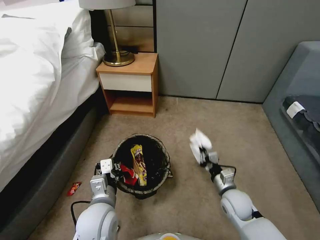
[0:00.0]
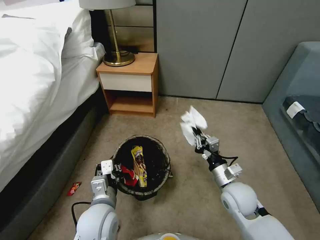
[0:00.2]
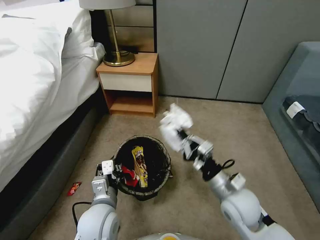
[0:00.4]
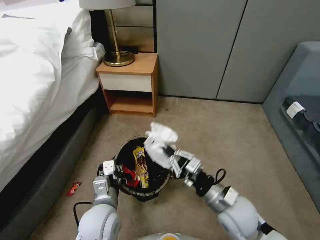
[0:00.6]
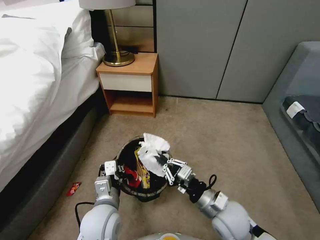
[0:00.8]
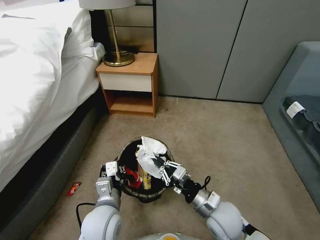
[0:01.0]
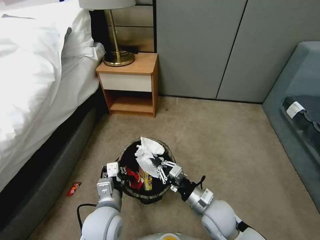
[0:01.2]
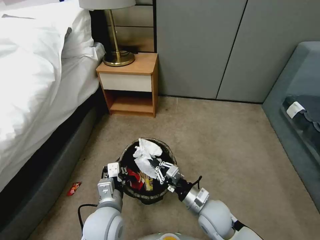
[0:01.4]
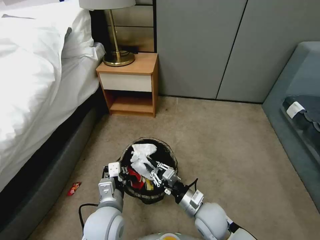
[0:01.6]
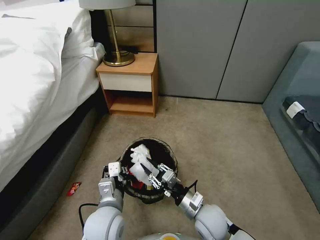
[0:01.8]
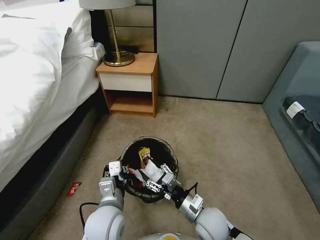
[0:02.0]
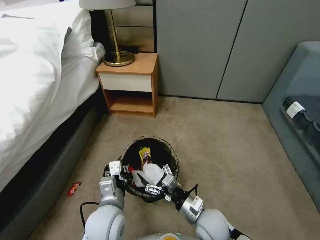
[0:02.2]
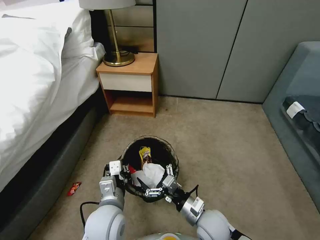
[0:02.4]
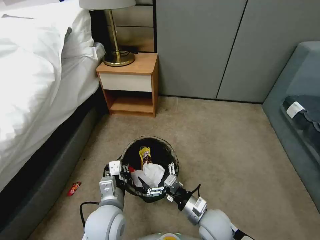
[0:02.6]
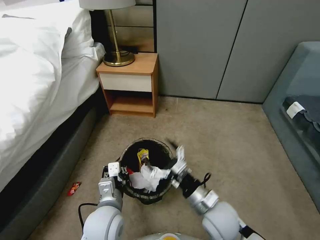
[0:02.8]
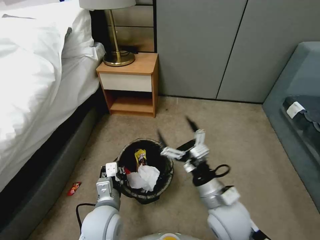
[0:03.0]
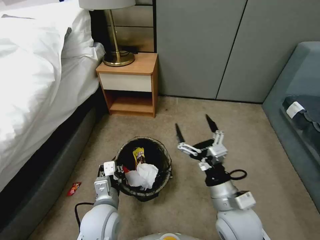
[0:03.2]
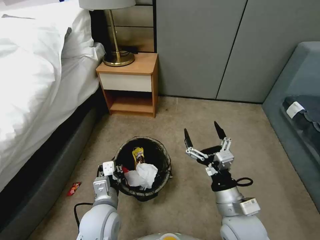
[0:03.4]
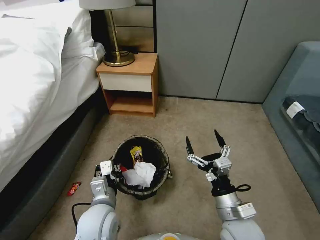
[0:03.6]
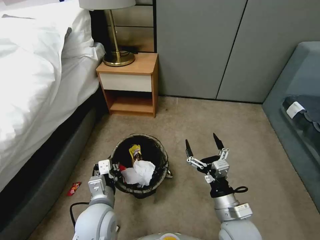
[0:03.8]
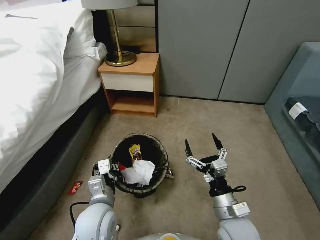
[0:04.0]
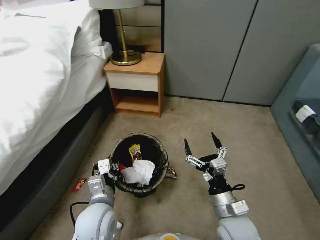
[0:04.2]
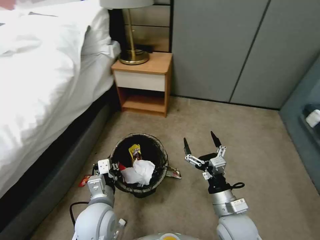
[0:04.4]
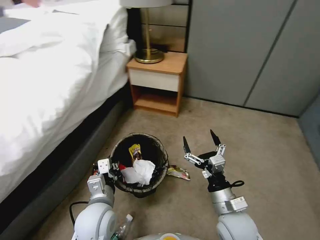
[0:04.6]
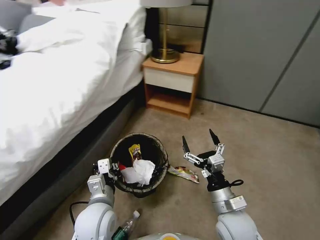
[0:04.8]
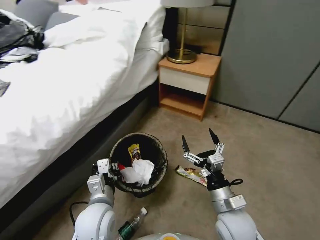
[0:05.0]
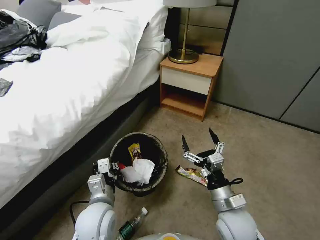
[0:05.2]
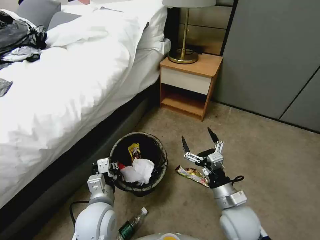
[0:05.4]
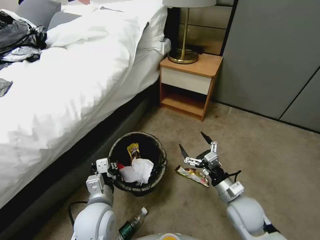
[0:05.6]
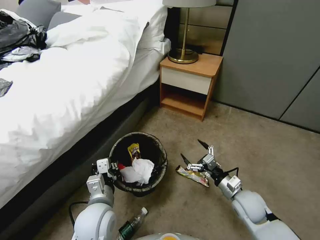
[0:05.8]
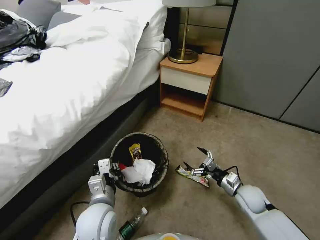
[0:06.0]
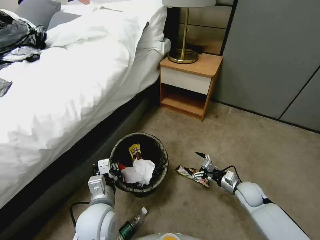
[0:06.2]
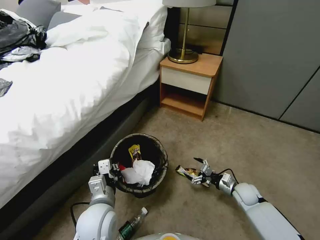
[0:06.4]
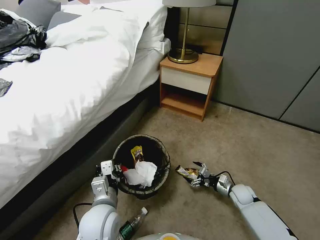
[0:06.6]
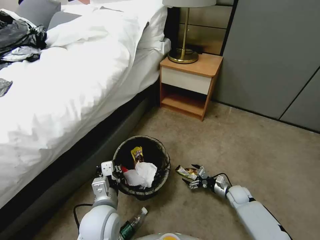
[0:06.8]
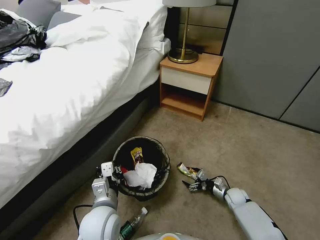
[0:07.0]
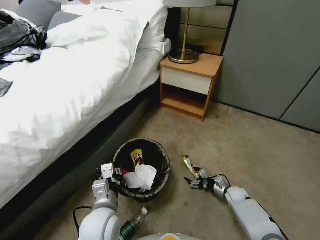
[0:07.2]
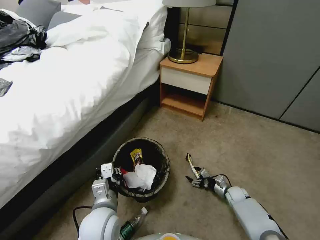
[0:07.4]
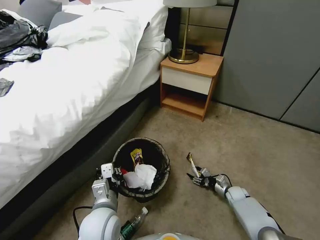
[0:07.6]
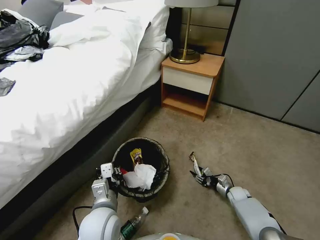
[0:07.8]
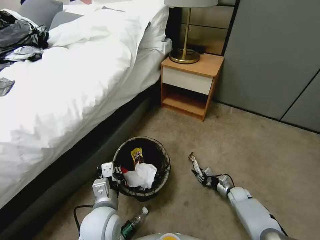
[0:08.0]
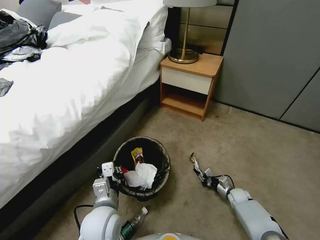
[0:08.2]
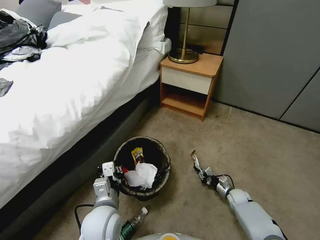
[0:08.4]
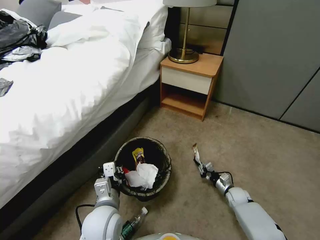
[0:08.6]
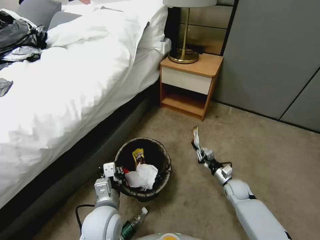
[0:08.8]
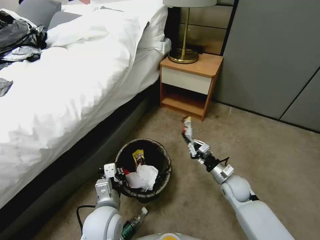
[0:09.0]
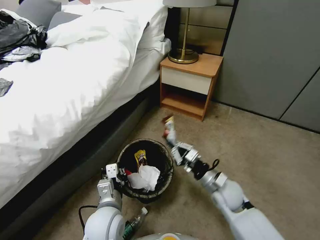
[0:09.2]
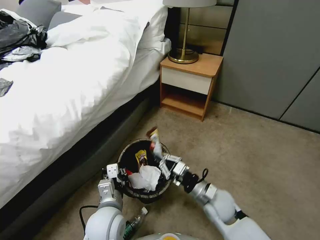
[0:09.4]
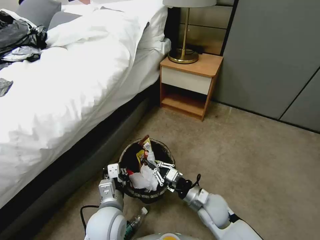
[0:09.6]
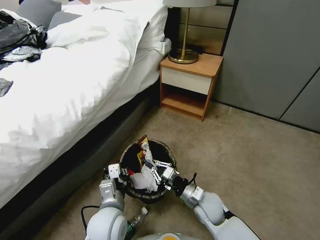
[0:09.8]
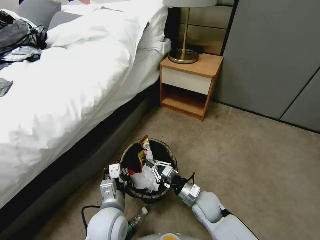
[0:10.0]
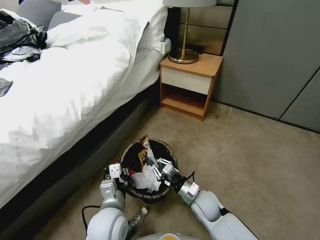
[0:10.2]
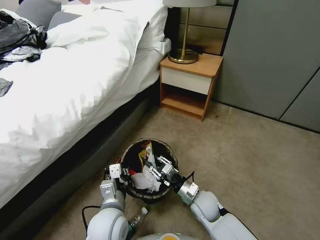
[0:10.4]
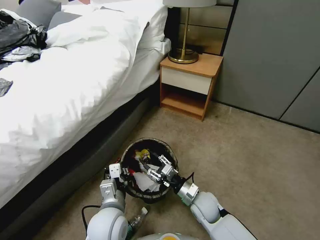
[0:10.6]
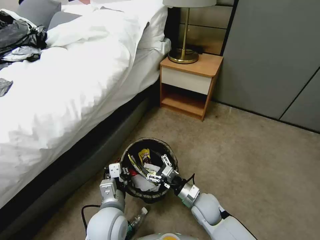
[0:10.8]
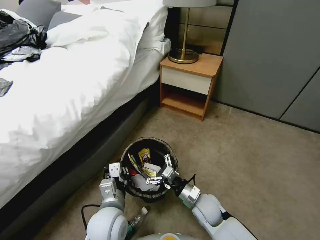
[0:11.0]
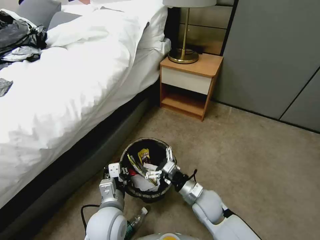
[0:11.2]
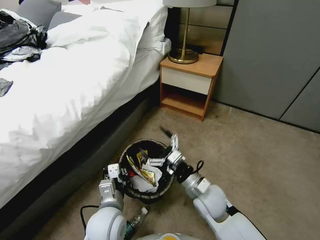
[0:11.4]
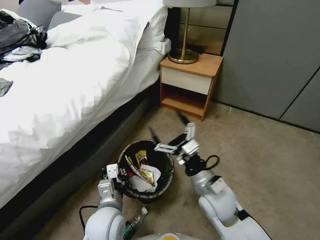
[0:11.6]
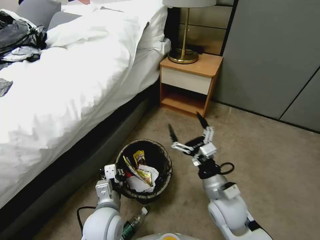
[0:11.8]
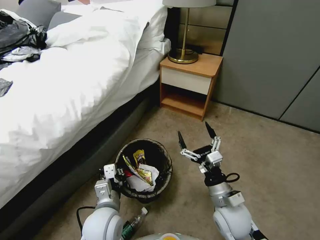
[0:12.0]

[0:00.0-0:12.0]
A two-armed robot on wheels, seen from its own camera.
Task of the whole recording: Pick up the trash bin, then pick up the garbage from the floor and place it into the trash bin.
0:00.0 to 0:01.6: The right gripper shifts about 10 cm to the left and backward, and moves some 15 cm upward and comes back.
0:01.6 to 0:03.0: The right gripper shifts some 10 cm upward, and opens.
0:03.0 to 0:04.4: The right gripper is displaced downward by some 5 cm.
0:04.4 to 0:06.0: The right gripper goes approximately 20 cm to the right, forward and downward.
0:06.0 to 0:07.6: The right gripper shifts some 15 cm downward, and closes its fingers.
0:07.6 to 0:09.0: The right gripper travels upward and to the left by approximately 20 cm, and closes its fingers.
0:09.0 to 0:10.4: The right gripper moves to the left and backward, some 15 cm.
0:10.4 to 0:12.0: The right gripper goes roughly 10 cm upward and backward, and opens.

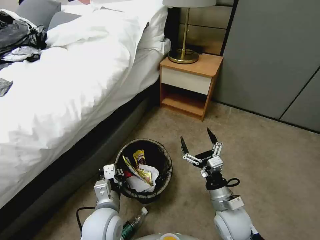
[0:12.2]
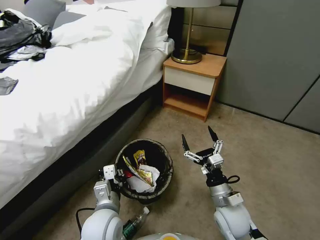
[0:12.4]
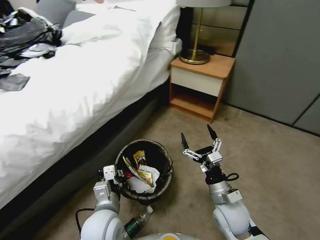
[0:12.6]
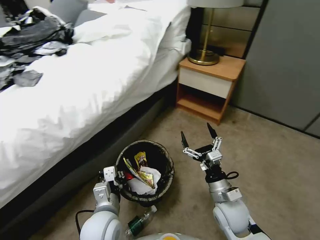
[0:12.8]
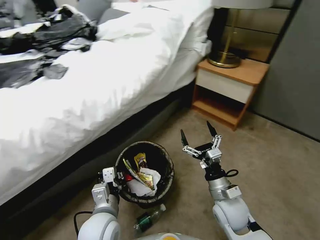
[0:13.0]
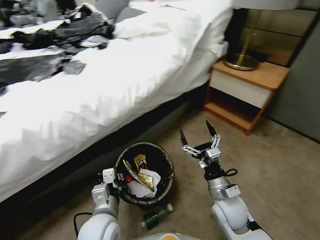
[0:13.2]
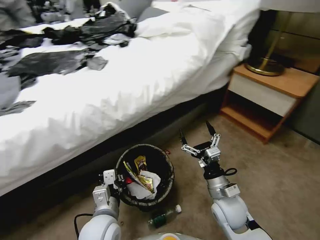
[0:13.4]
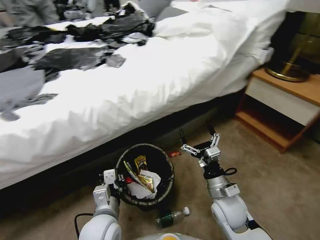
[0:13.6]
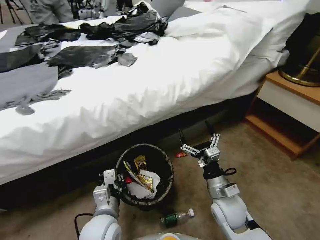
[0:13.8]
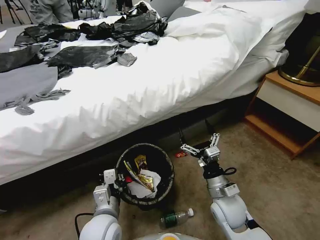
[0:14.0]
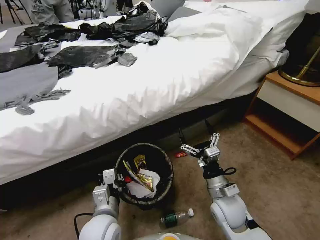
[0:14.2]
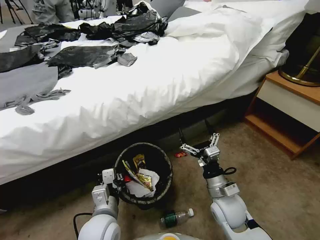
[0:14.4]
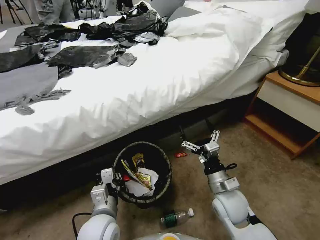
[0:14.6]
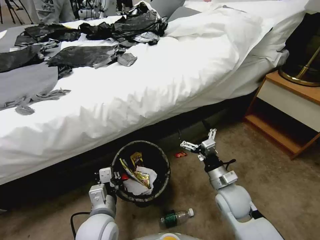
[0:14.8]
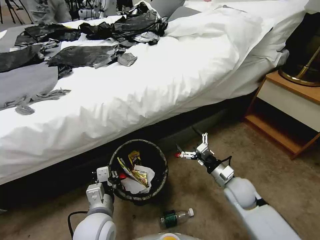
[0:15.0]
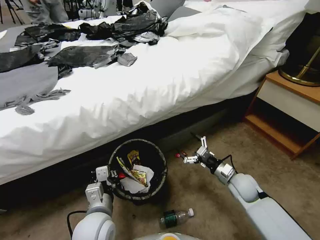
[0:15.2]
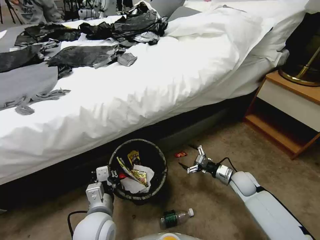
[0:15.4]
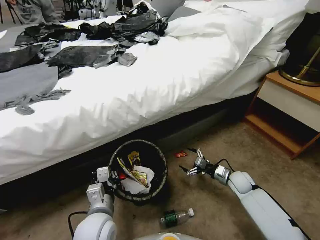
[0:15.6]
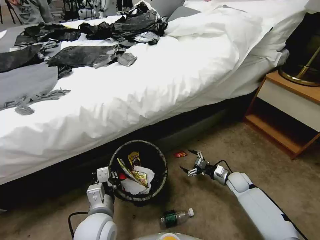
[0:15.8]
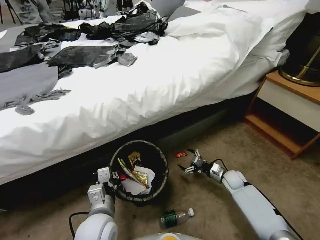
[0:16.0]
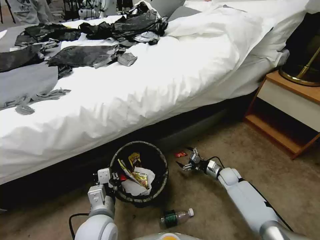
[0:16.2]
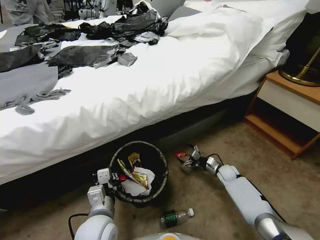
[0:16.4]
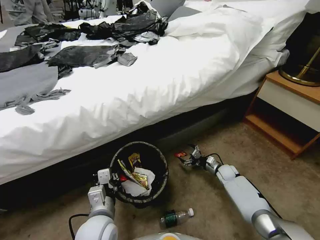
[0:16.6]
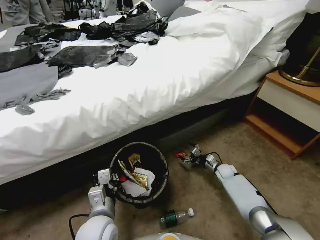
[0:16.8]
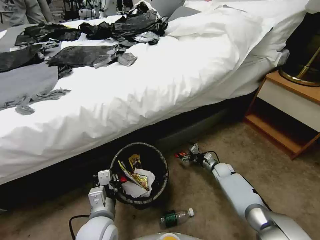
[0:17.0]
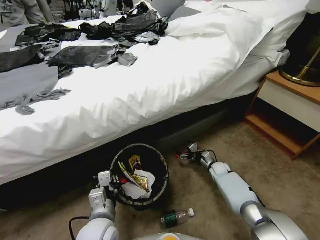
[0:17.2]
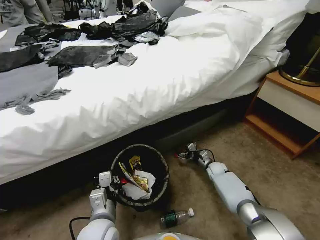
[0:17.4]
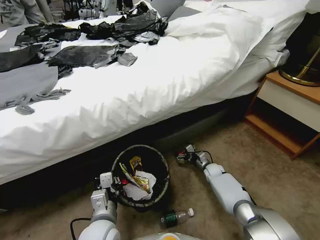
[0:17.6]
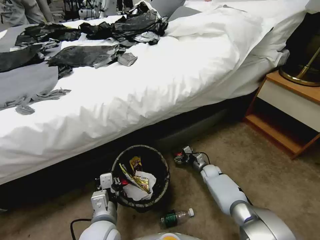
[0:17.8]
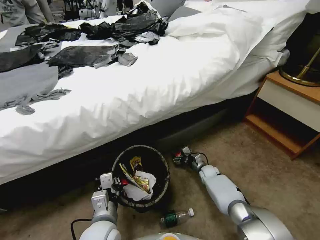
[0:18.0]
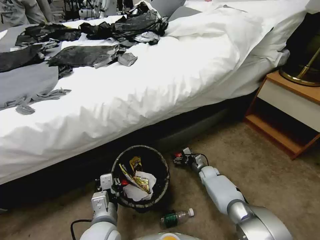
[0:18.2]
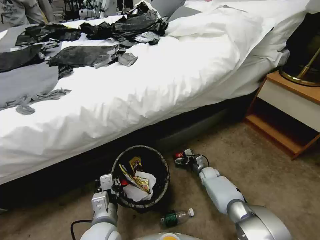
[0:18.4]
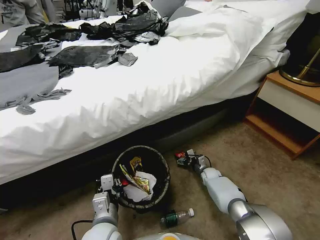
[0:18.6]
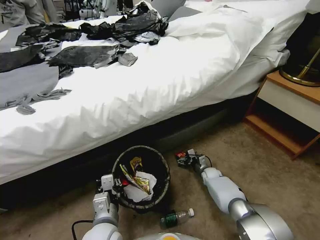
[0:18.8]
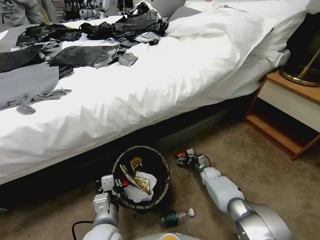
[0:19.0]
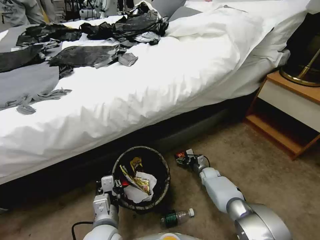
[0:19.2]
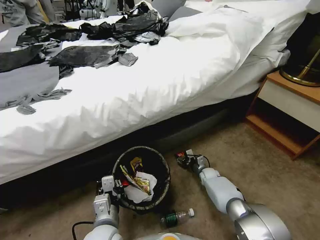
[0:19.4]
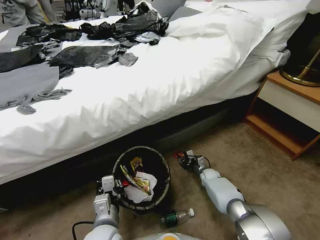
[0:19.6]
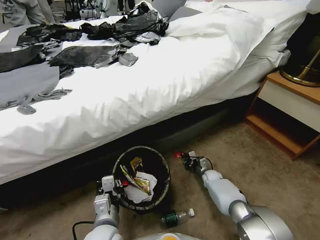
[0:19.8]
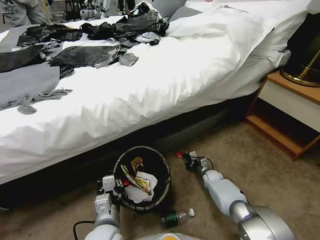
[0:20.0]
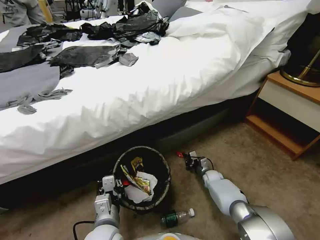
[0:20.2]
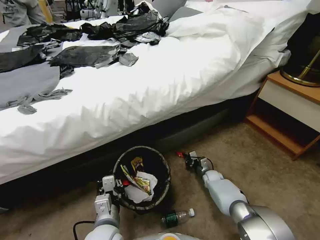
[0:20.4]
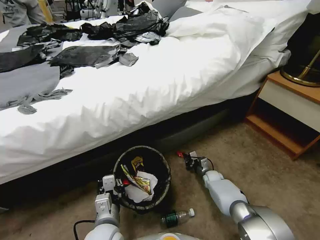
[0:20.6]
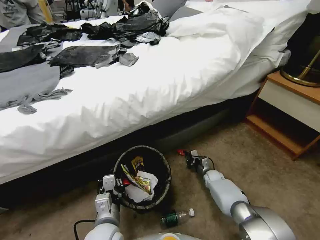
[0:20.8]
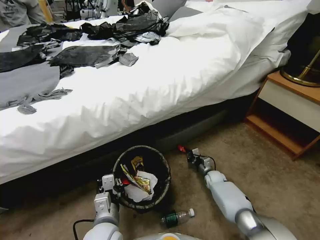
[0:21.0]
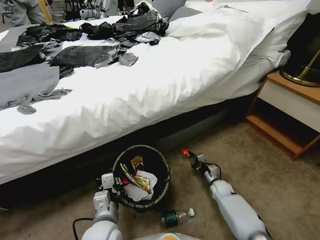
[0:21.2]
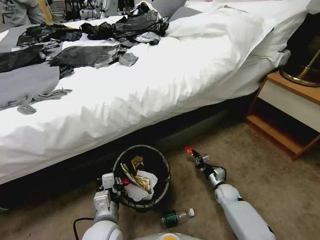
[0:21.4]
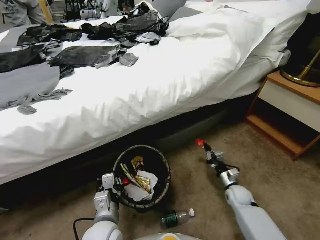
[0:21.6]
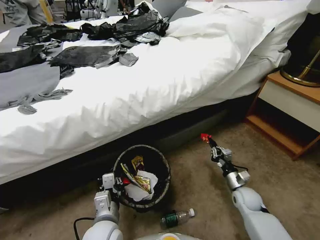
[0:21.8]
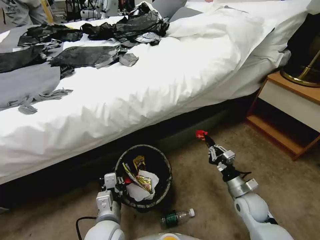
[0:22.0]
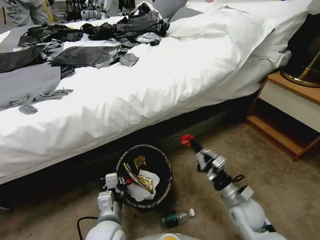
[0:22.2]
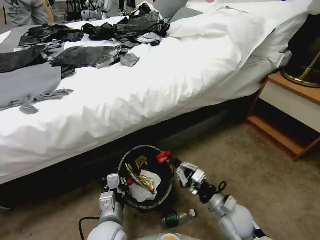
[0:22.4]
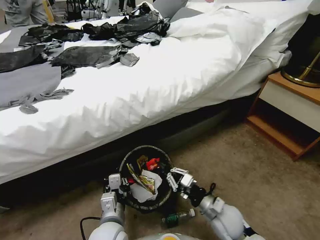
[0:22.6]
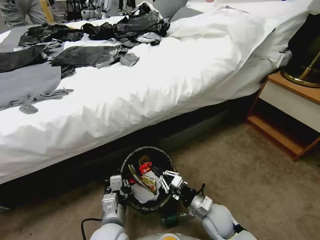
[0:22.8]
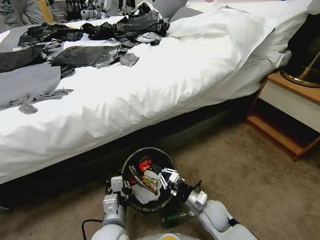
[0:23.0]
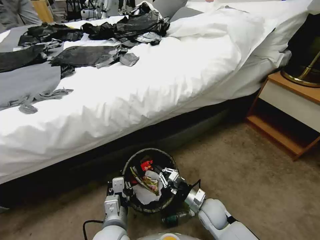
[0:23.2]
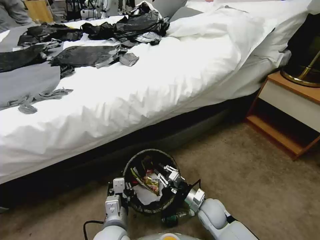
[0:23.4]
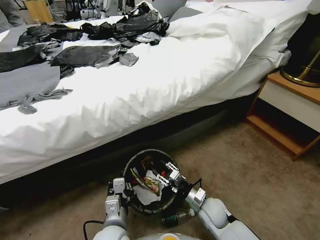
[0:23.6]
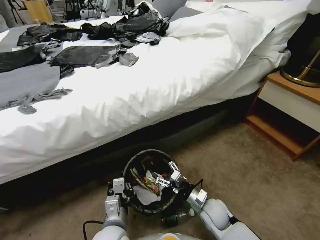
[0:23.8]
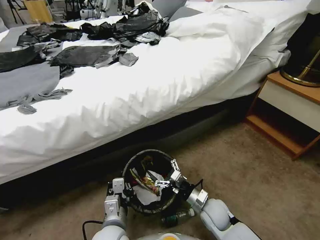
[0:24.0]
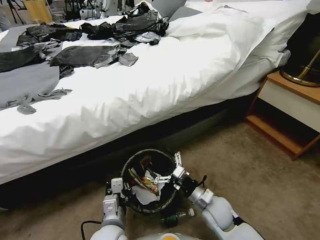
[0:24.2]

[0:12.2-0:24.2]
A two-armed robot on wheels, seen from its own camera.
Task of the whole recording: Pick up the trash bin, then pick up the garbage from the floor and place it into the trash bin.
0:13.8 to 0:15.2: The right gripper is displaced to the right, forward and downward by approximately 15 cm.
0:15.2 to 0:16.6: The right gripper shifts some 15 cm downward and forward.
0:16.6 to 0:18.2: The right gripper is displaced to the left by some 10 cm.
0:18.2 to 0:19.8: The right gripper closes up.
0:19.8 to 0:21.2: The right gripper shifts roughly 5 cm backward.
0:21.2 to 0:22.6: The right gripper moves upward, backward and to the left, approximately 25 cm.
0:22.6 to 0:24.2: The right gripper opens.
